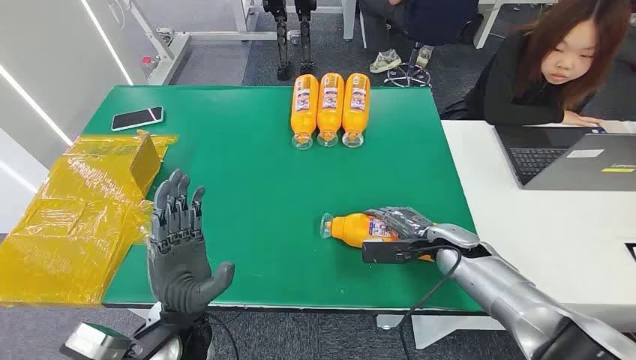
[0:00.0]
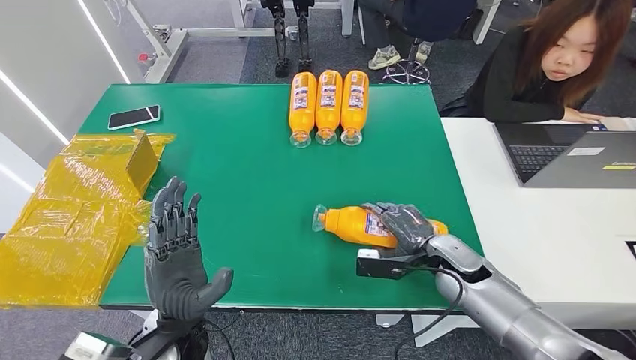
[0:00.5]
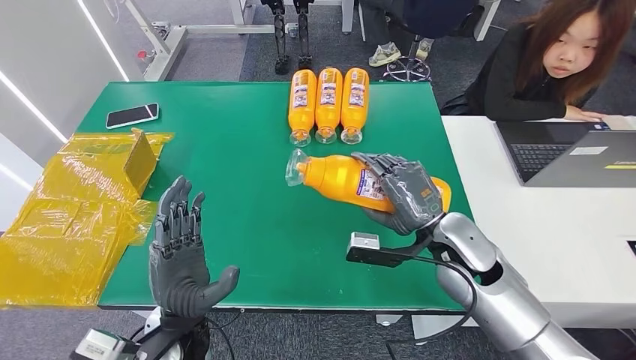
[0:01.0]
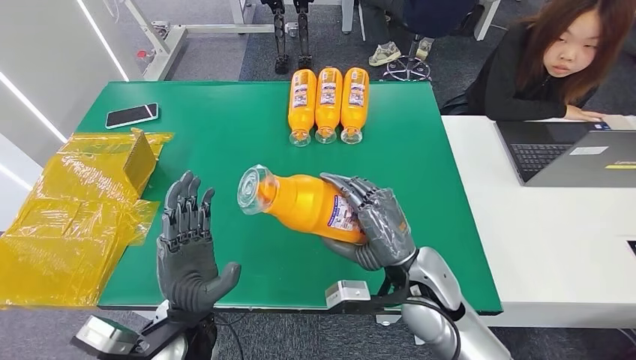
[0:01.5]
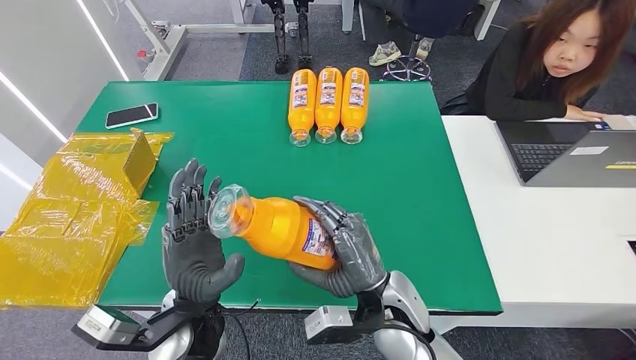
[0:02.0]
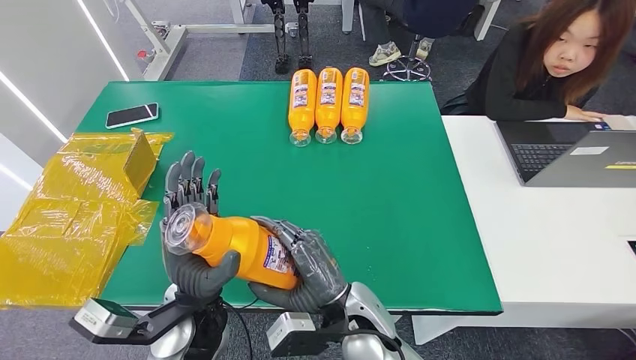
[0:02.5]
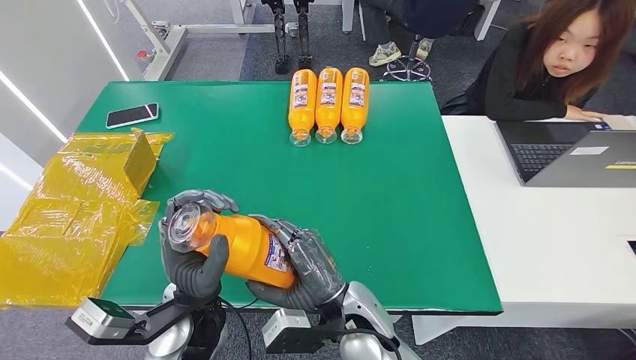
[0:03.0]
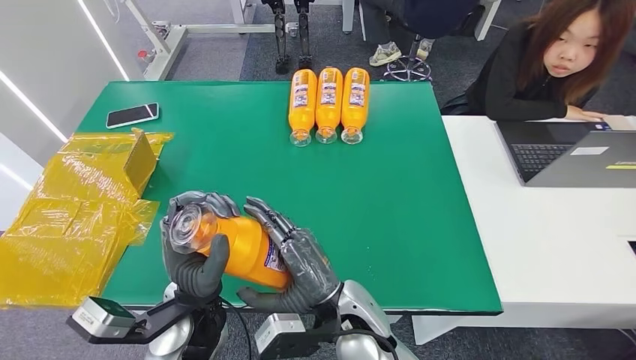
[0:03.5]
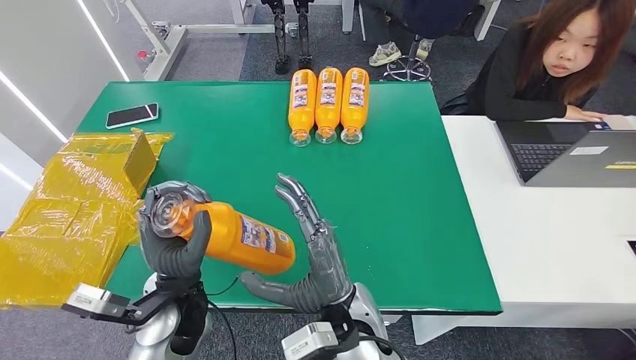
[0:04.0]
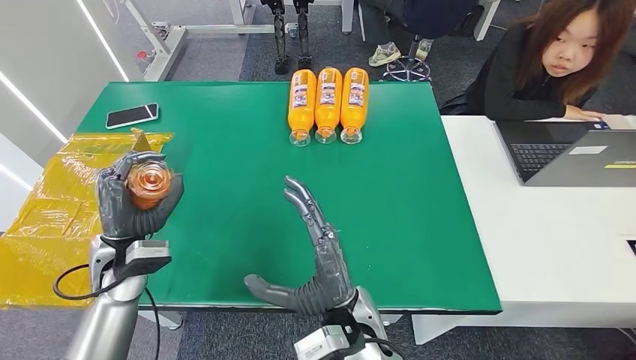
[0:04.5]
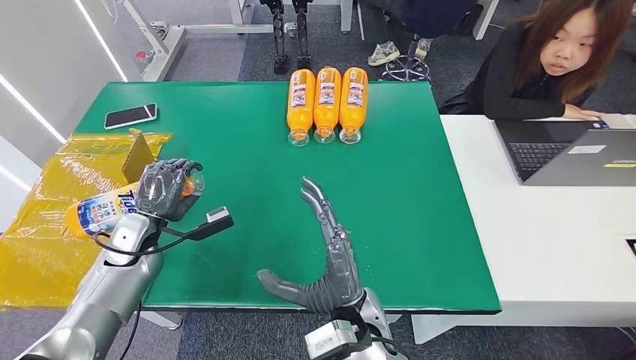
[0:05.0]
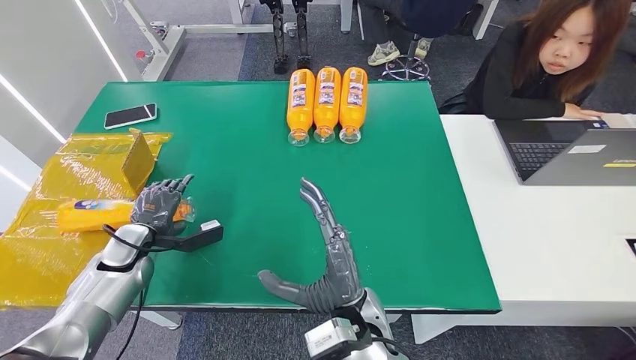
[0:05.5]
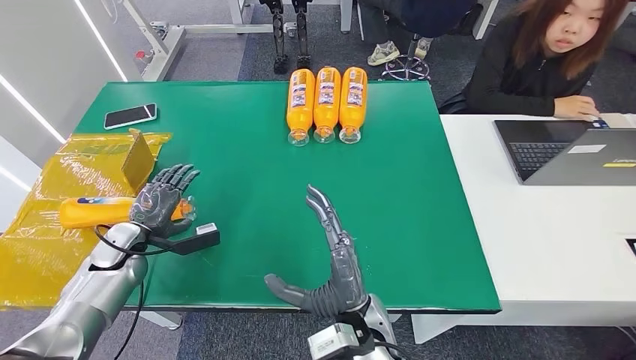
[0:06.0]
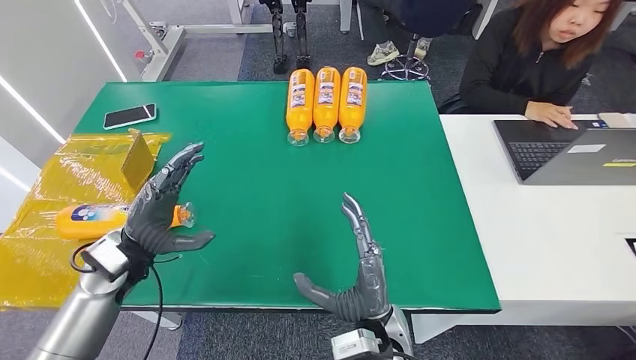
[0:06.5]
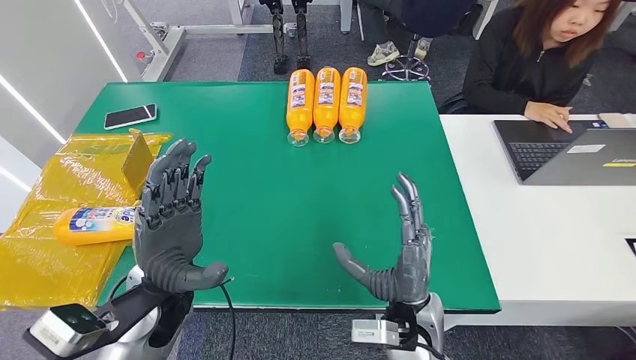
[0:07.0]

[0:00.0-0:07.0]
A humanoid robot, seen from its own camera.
Step, 0:00.0 to 0:01.5: Pick up the bottle from the table.
Step, 0:02.0 to 0:07.0: Turn the bottle to the front side.
0:02.0 to 0:03.5: The right hand travels to the left by roughly 5 cm.
0:03.5 to 0:05.0: The left hand is displaced to the left and forward by approximately 25 cm.
0:05.0 to 0:07.0: The right hand moves to the right, some 10 cm. The left hand shifts about 20 cm to the right, backward and upward.
